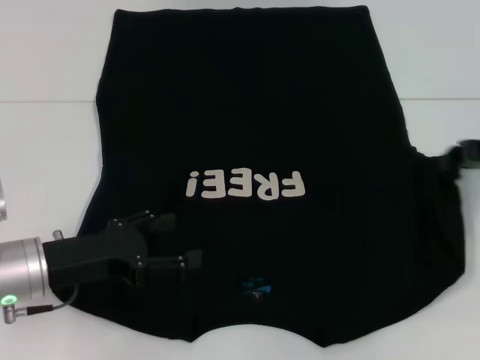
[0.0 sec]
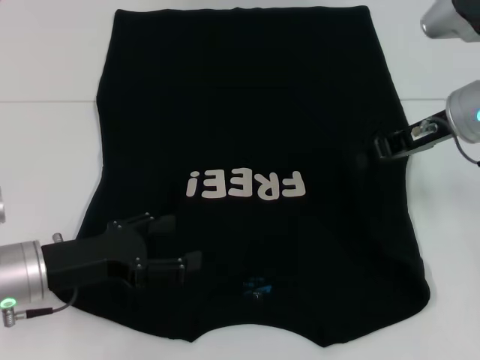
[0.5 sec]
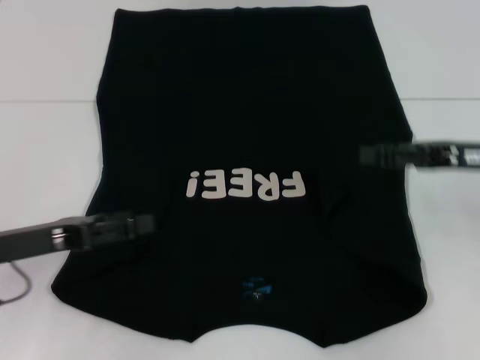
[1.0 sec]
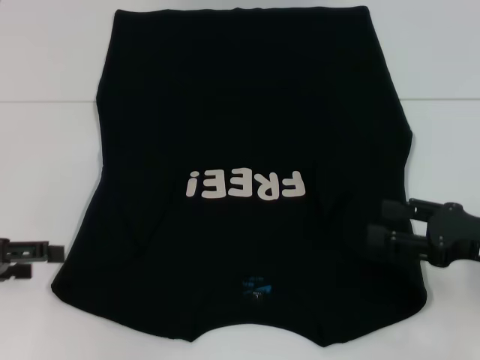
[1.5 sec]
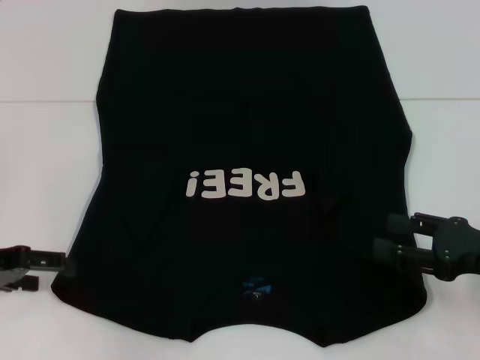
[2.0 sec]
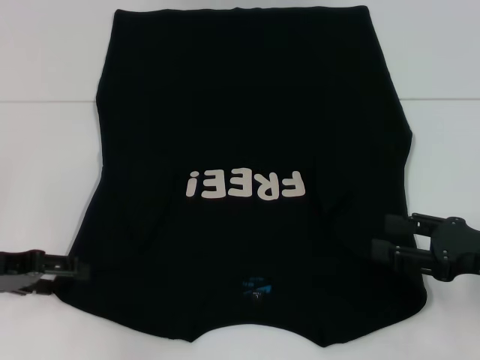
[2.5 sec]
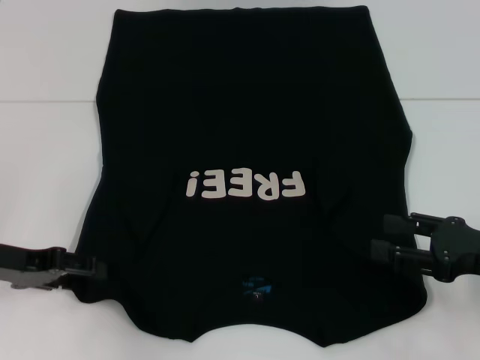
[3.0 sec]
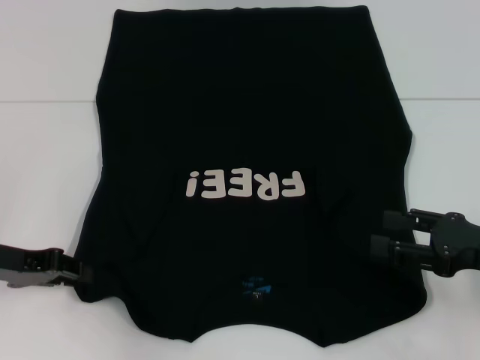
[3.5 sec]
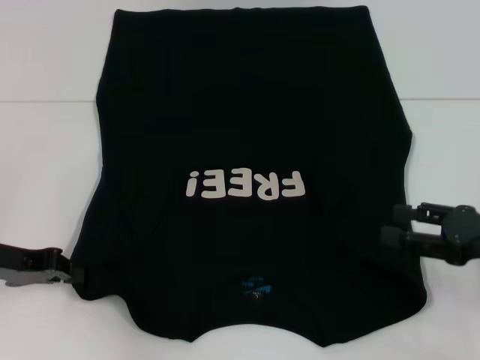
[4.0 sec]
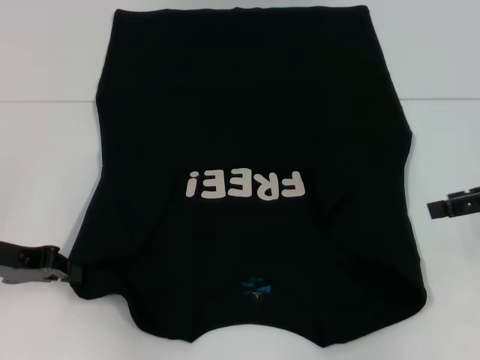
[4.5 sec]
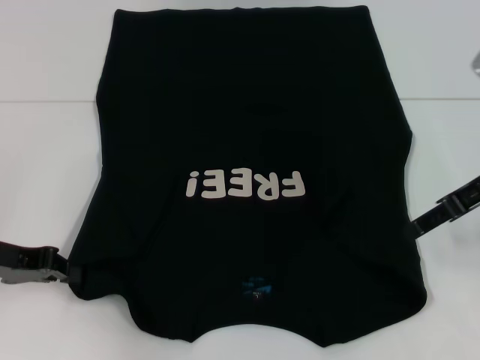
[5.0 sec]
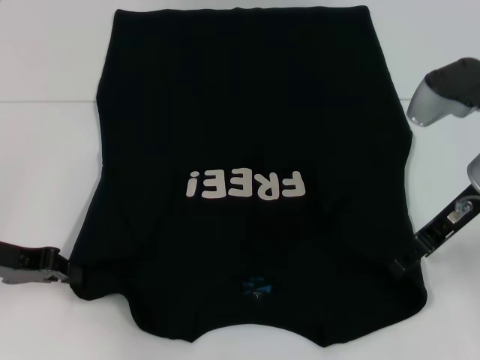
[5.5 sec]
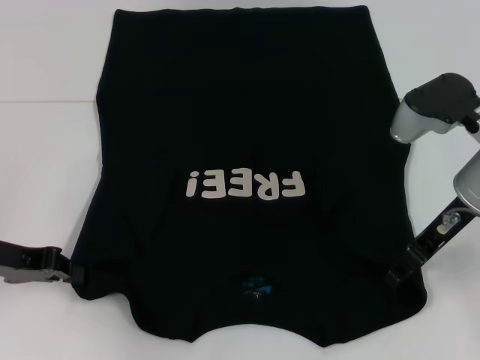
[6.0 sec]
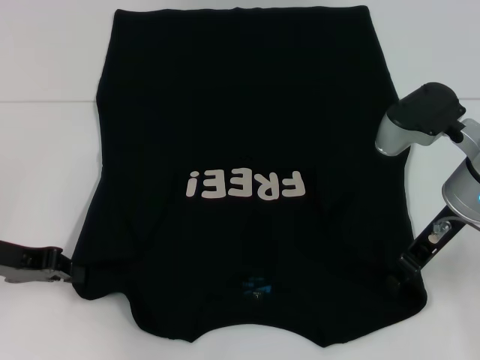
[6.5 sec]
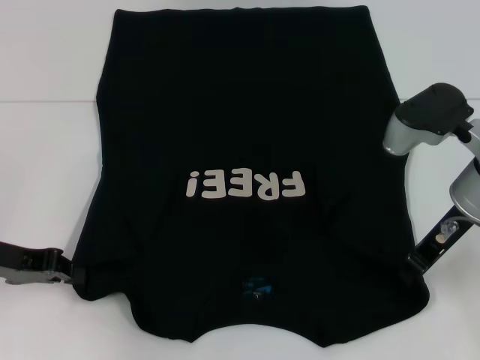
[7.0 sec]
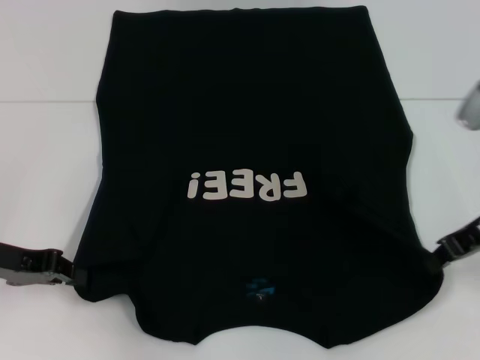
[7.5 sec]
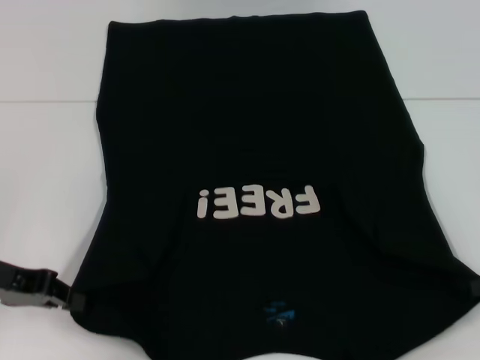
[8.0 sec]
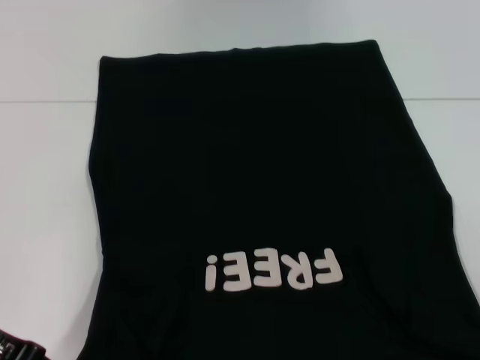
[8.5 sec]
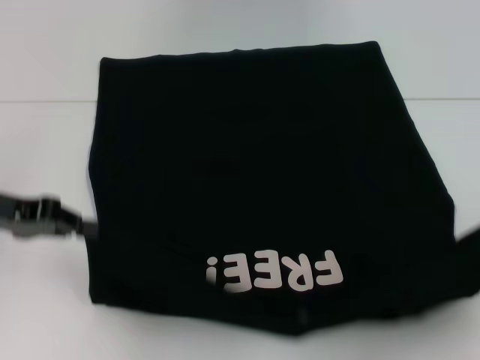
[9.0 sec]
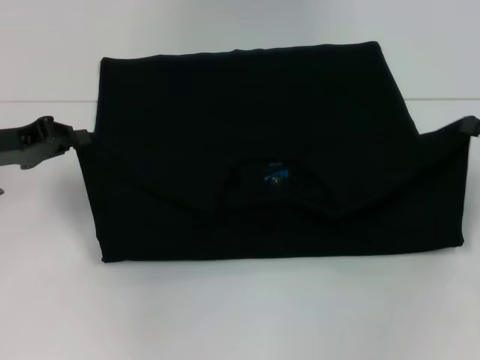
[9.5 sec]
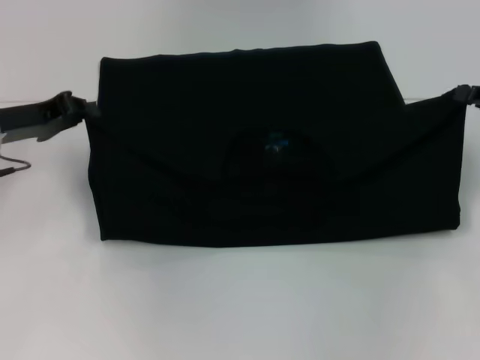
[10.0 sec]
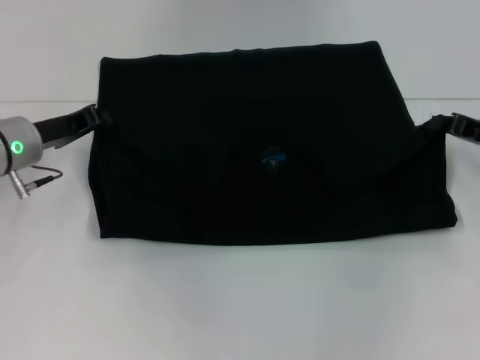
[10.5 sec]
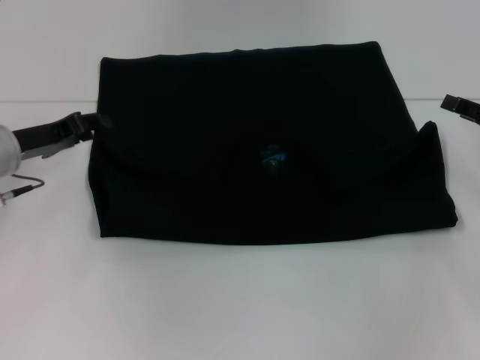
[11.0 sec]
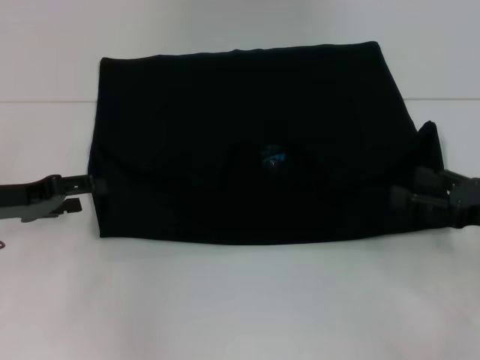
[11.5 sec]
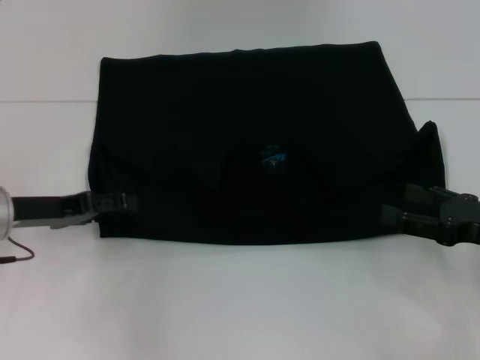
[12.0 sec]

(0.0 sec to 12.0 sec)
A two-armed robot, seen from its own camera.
Step, 1.0 sec - 3.5 sec: Grab the bottom left corner with your left hand.
Step, 4.0 sec - 7.5 sec: Grab the bottom right corner with your right hand.
Step, 8.0 sec - 11.0 sec: Fold the clothes with your left hand.
Step, 8.0 sec - 11.0 sec: Fold the clothes with your right hand.
0.0 sec - 2.0 sec: The left gripper travels to the left by some 10 cm, while the right gripper moves backward and downward, some 15 cm, and opens up.
2.0 sec - 4.0 sec: The left gripper closes.
4.0 sec - 6.0 sec: The right gripper goes approximately 15 cm to the left, forward and upward.
6.0 sec - 8.0 sec: The right gripper goes approximately 15 cm to the right and backward, and closes up.
8.0 sec - 10.0 sec: Both grippers move forward, roughly 10 cm.
10.0 sec - 12.0 sec: The left gripper ends up approximately 5 cm from where it was, and opens up, while the right gripper is displaced backward and downward by approximately 10 cm, and opens.

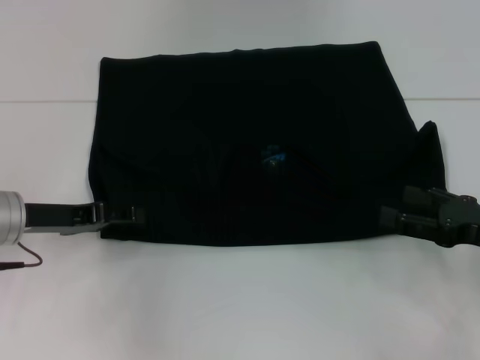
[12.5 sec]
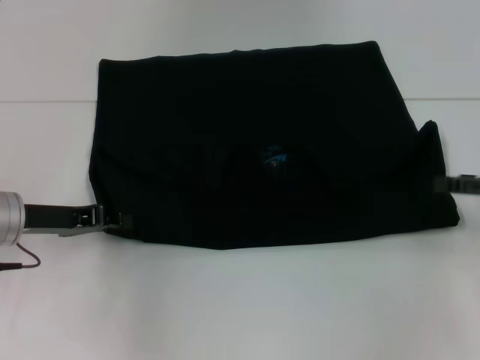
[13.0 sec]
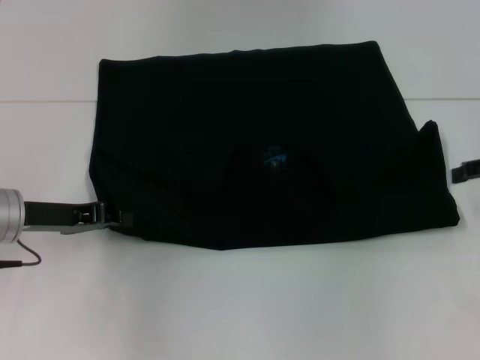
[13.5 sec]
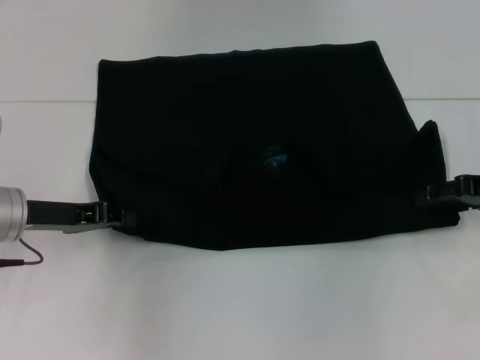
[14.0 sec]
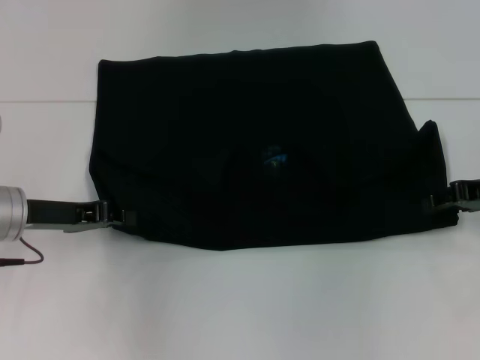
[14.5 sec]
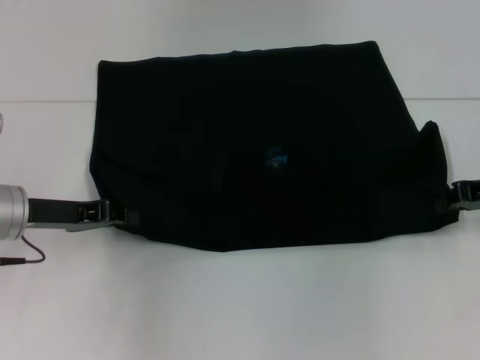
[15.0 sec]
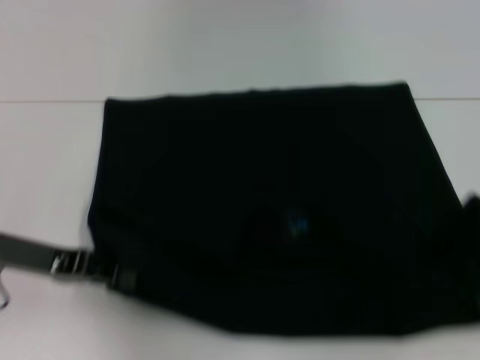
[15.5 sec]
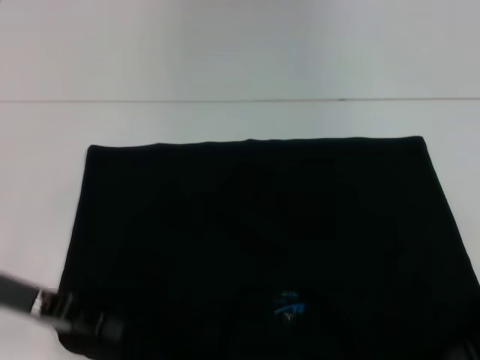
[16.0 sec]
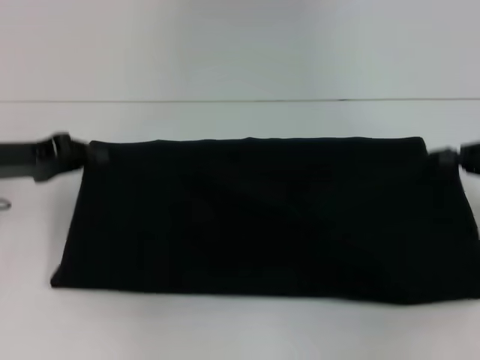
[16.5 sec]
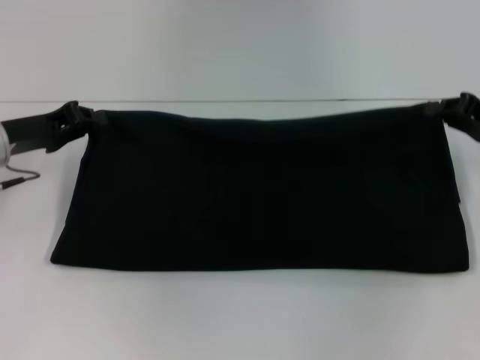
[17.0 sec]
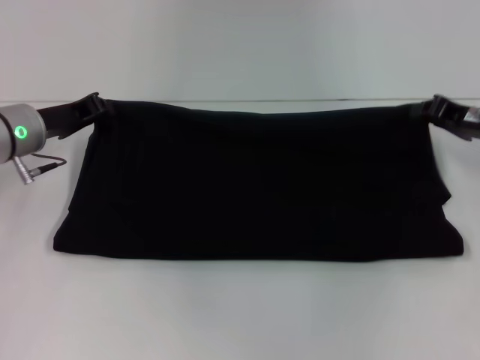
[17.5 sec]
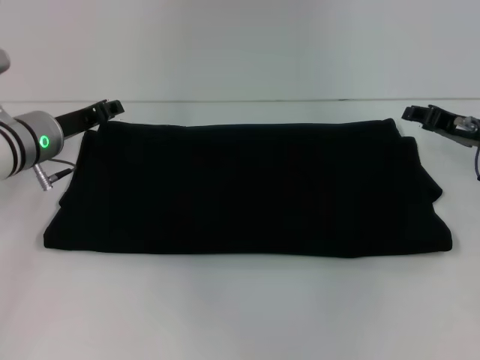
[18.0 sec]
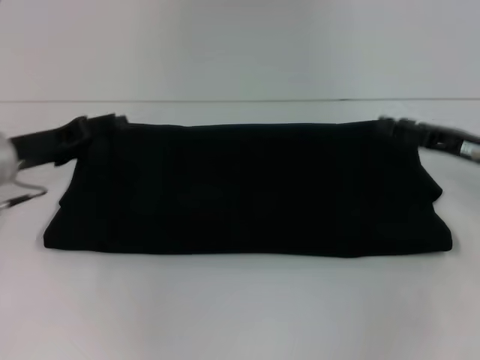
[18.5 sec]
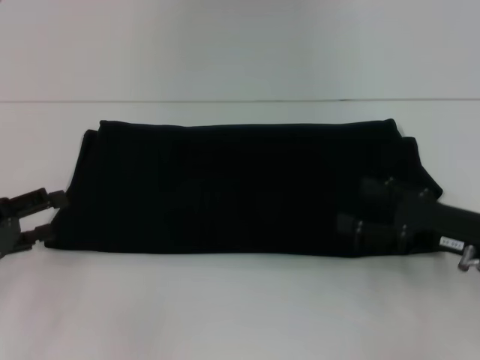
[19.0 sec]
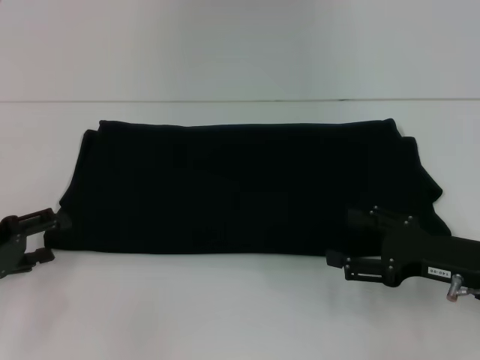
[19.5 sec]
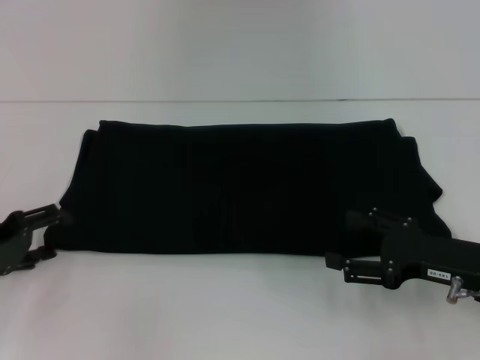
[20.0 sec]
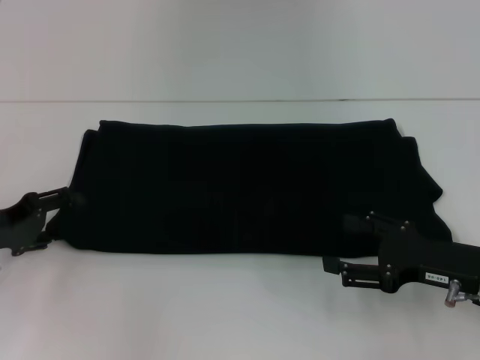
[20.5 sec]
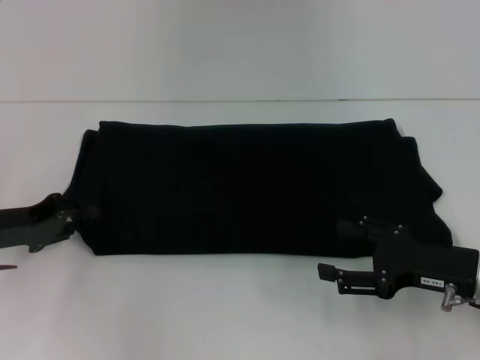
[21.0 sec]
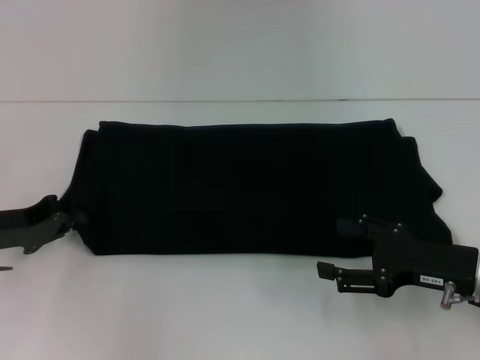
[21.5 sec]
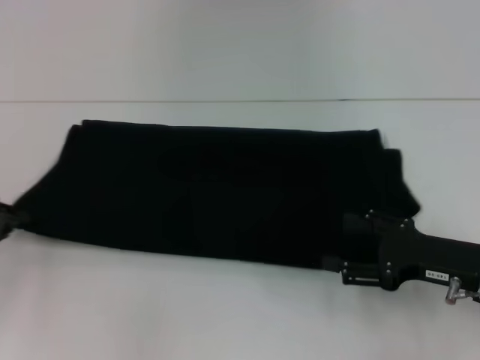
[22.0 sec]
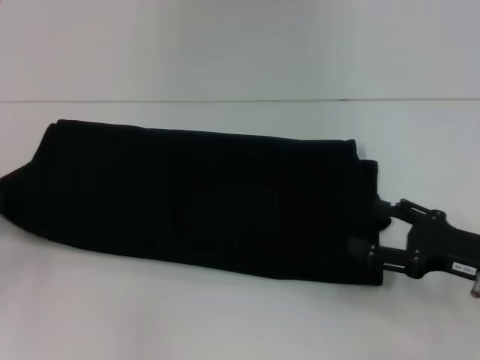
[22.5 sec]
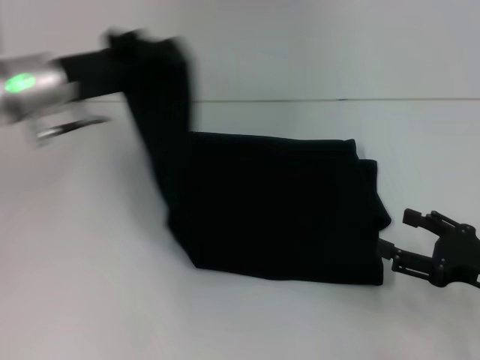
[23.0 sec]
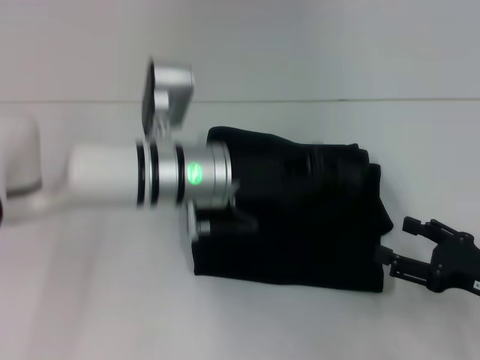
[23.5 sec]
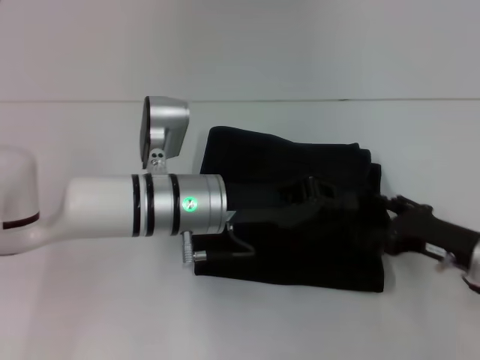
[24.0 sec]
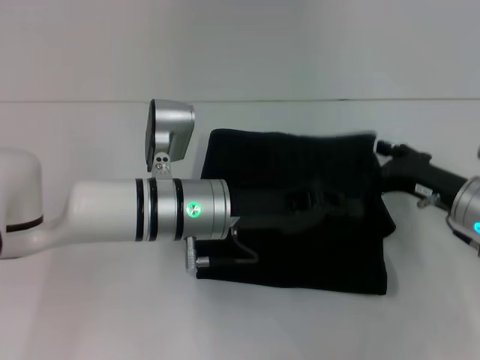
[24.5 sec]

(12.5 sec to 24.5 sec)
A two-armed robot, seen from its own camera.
Step, 12.5 sec - 15.5 sec: Pull the clothes with your left hand.
Step, 12.5 sec - 15.5 sec: Pull the clothes with your right hand.
Step, 16.0 sec - 18.0 sec: Fold the clothes with your right hand.
Step, 16.0 sec - 24.0 sec: Fold the clothes with your left hand.
12.5 sec - 14.5 sec: The right gripper heads forward, covering approximately 10 cm, while the left gripper closes its fingers.
14.5 sec - 16.5 sec: The left gripper moves some 5 cm backward and comes back, while the right gripper moves approximately 10 cm backward and comes back, and closes up.
16.5 sec - 18.5 sec: The left gripper opens up. Meanwhile the right gripper travels to the left by approximately 5 cm, and opens.
18.5 sec - 20.5 sec: The grippers both shift backward by about 5 cm.
20.5 sec - 22.5 sec: The left gripper shifts approximately 5 cm to the left, and closes.
22.5 sec - 24.5 sec: The left gripper is displaced to the right by roughly 30 cm, while the right gripper is displaced forward by roughly 5 cm.

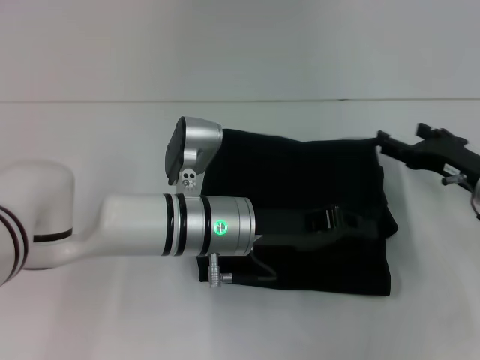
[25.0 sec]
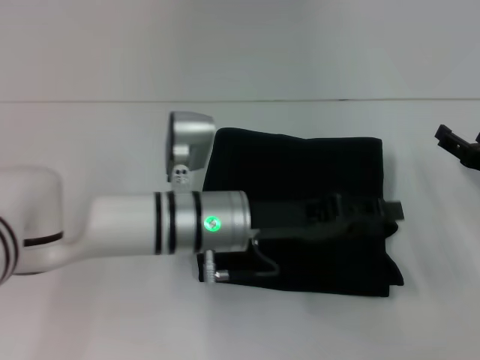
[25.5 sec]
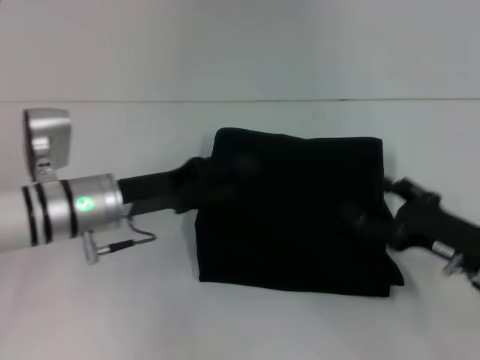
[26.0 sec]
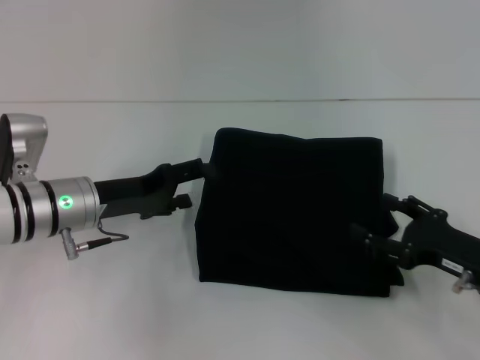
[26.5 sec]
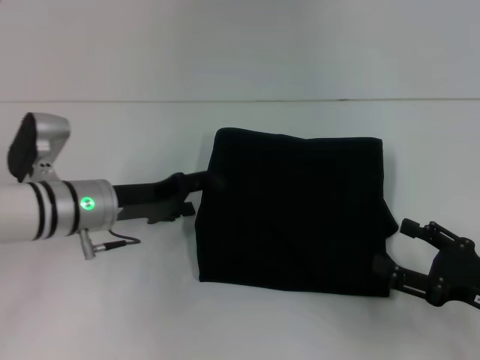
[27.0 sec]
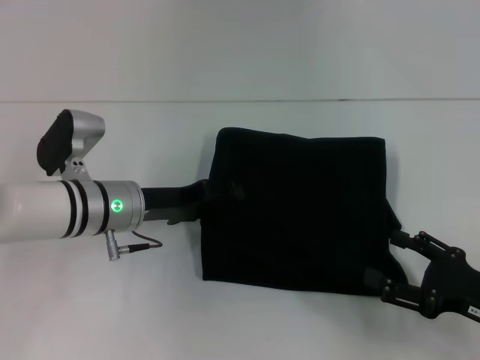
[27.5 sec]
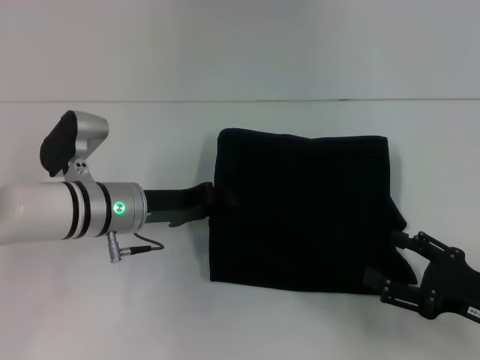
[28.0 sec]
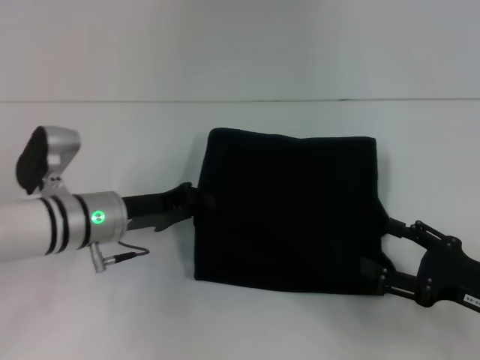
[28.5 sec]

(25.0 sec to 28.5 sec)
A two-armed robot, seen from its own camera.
25.0 sec - 27.0 sec: The left gripper goes about 15 cm to the left, and opens, while the right gripper heads backward, covering roughly 15 cm.
27.0 sec - 28.5 sec: The left gripper closes up.
